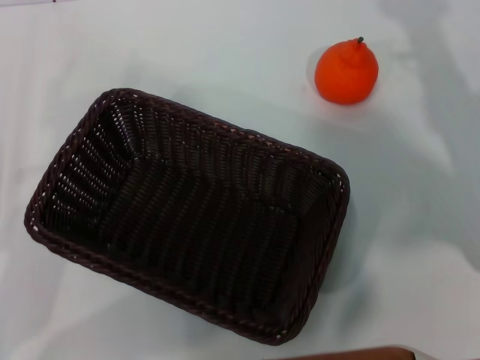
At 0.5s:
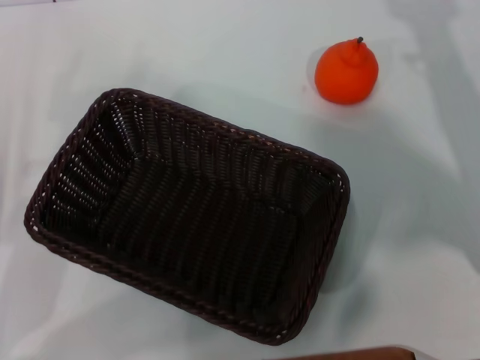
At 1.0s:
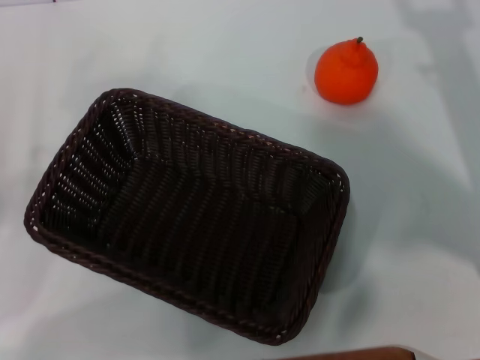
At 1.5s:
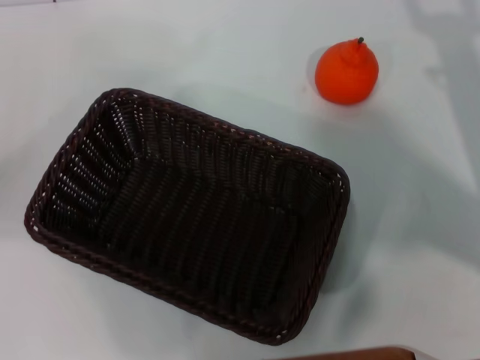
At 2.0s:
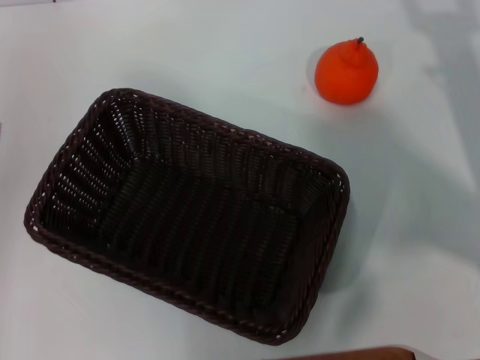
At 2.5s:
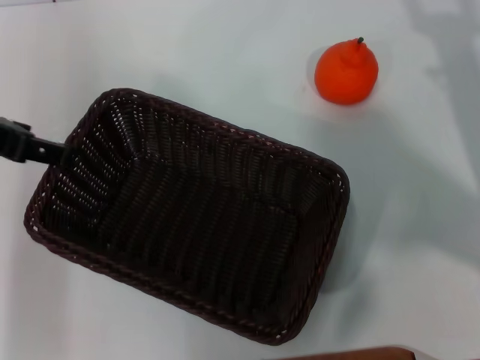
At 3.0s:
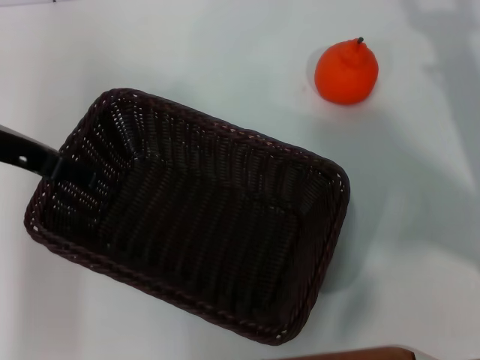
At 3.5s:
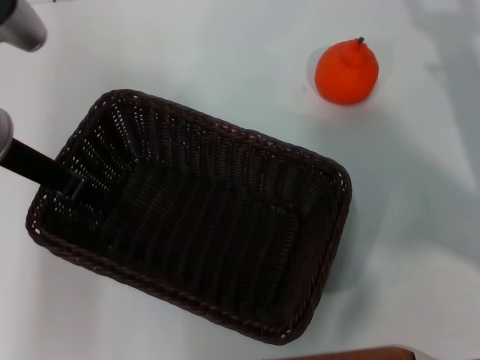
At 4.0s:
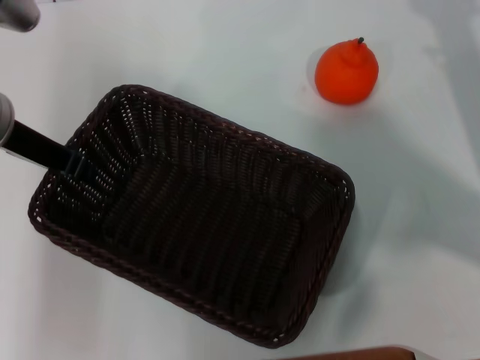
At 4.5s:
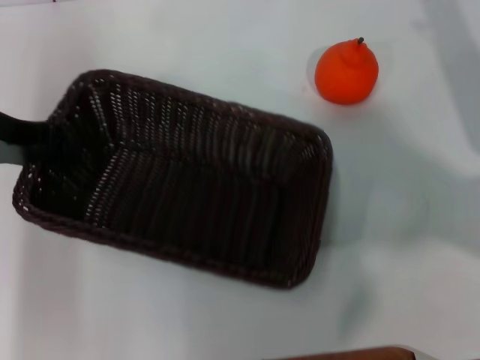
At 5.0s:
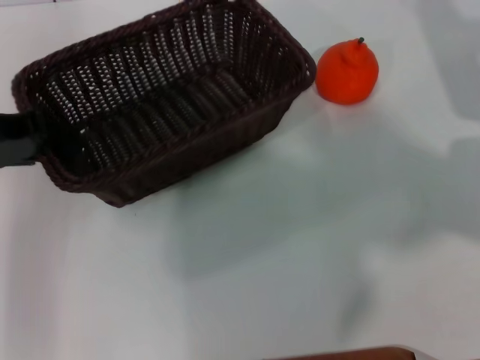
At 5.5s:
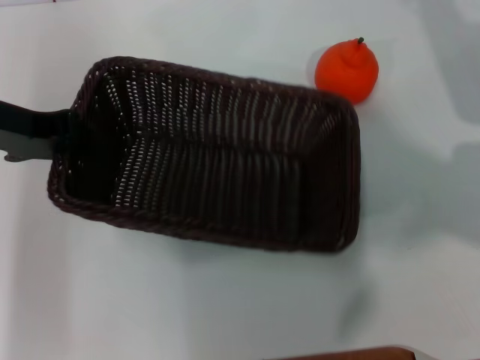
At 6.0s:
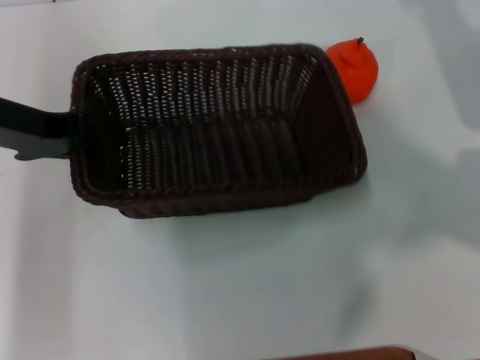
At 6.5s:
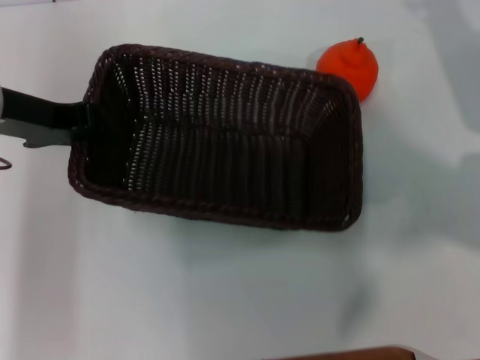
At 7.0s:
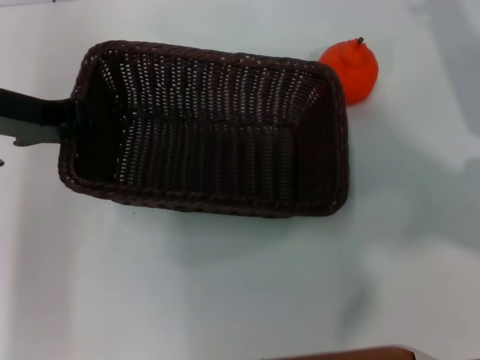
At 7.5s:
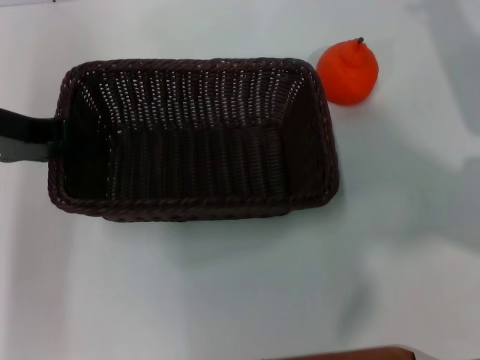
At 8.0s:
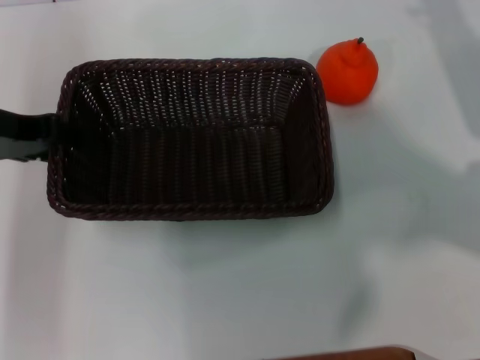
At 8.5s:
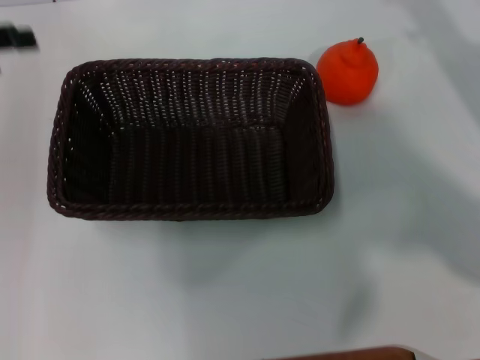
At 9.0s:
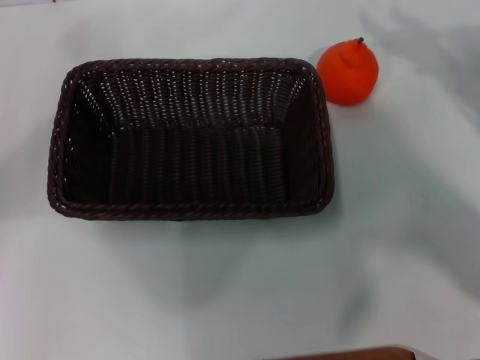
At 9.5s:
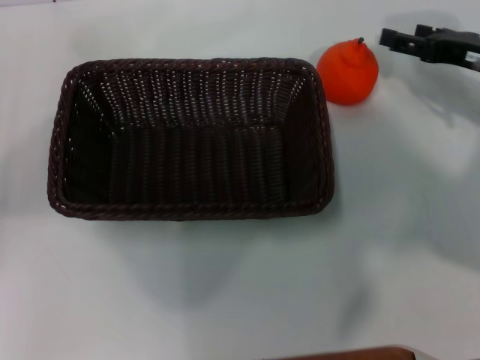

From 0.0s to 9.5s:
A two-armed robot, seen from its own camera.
Task of the whole recording: the left gripper pick up the black basket and place it horizontally in the middle of the table, the right gripper pick up the orange and place it into the black basket.
Step, from 0.0s to 4.0s: Pick up the dark basket with the left gripper.
Step, from 4.5s to 7.5s: Place the dark basket in the center of view with the left gripper.
From 0.0s to 2.0s: The left gripper heads upward and forward, covering some 20 cm.
From 2.0s to 4.0s: The left gripper goes roughly 15 cm to the right, downward and forward, and closes.
From 4.0s to 5.5s: The right gripper is displaced forward by some 5 cm.
From 5.5s to 7.5s: The grippers stay close to where they were, moving slightly.
From 7.5s to 9.5s: The left gripper heads to the left and backward, covering roughly 10 cm, and opens up.

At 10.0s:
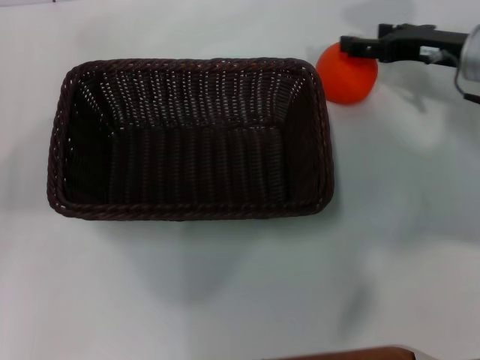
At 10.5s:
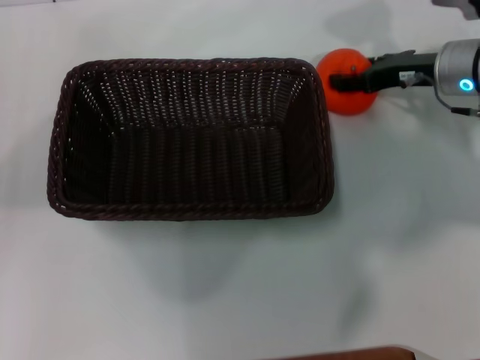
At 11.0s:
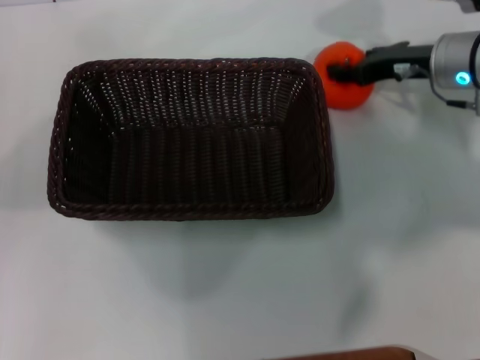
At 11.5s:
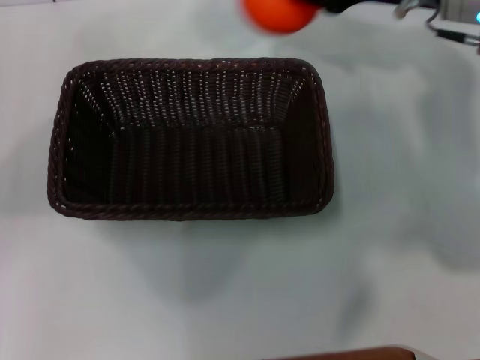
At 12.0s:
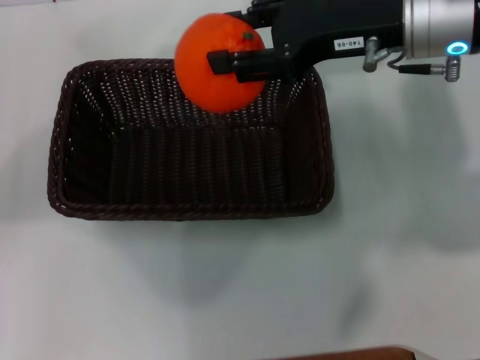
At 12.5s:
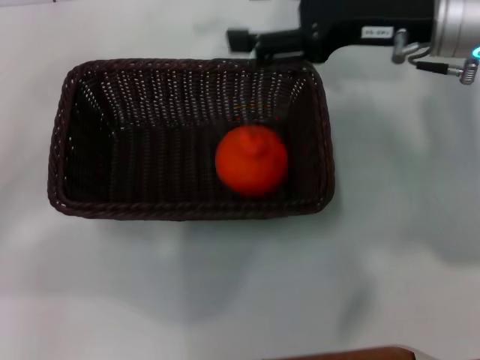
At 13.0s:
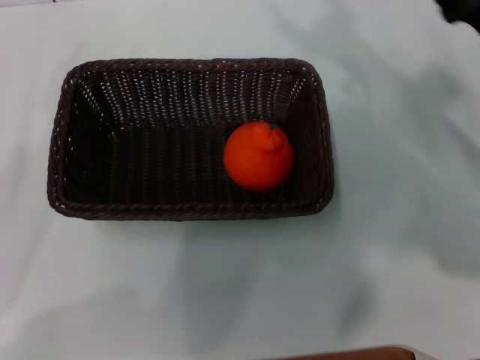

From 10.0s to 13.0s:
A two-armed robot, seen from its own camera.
Task of the whole recording: the left gripper pick up the black basket and place it horizontally in the middle of the table, the right gripper pick up the orange and place it into the black basket.
Step, from 11.5s to 12.0s: Place the orange into the dark basket with the right gripper.
From 10.0s to 11.5s: The right gripper shifts about 10 cm upward and to the left, and closes up.
From 11.5s to 13.0s: The right gripper goes about 15 cm downward, backward and to the right, and opens; the left gripper goes approximately 15 cm downward and backward.

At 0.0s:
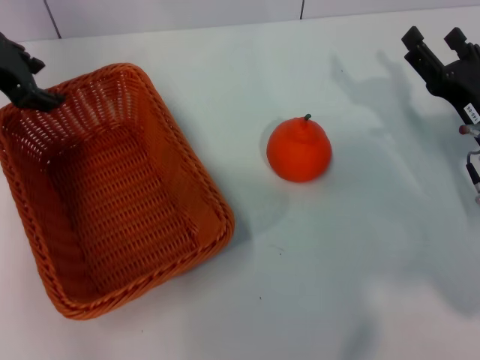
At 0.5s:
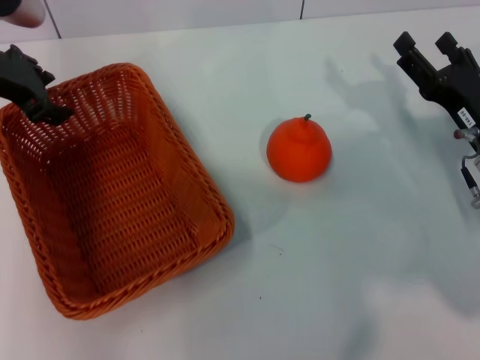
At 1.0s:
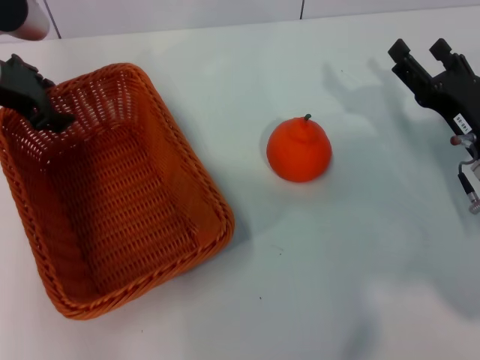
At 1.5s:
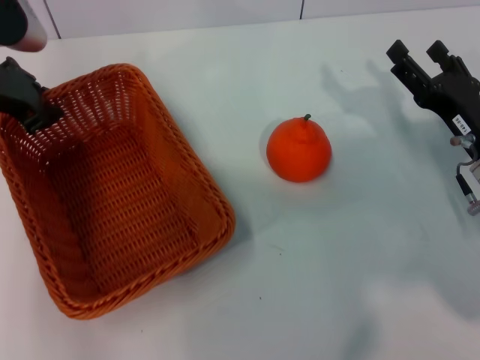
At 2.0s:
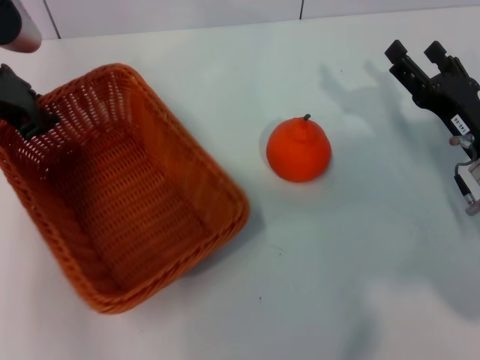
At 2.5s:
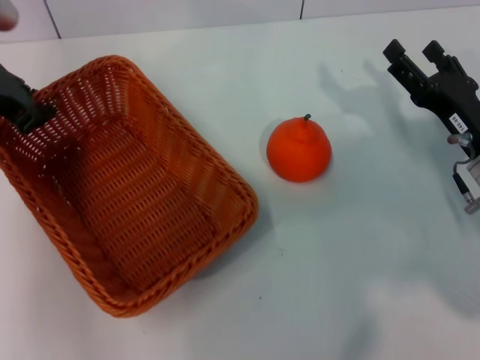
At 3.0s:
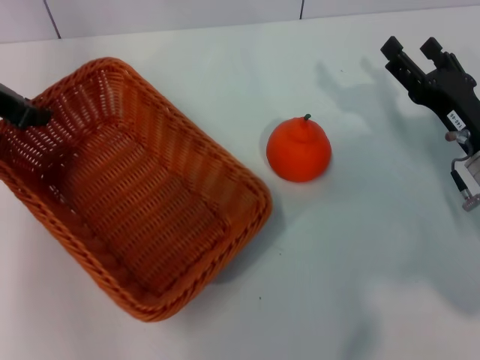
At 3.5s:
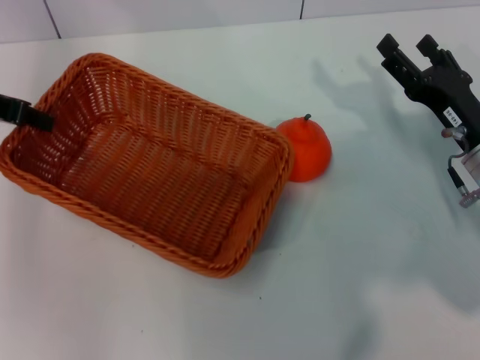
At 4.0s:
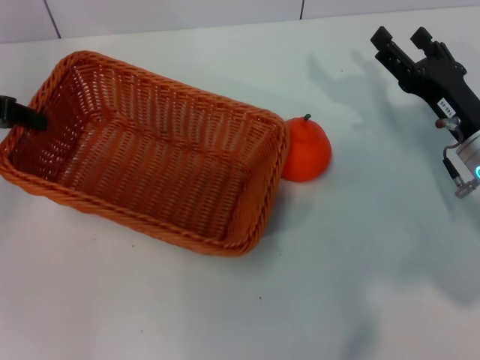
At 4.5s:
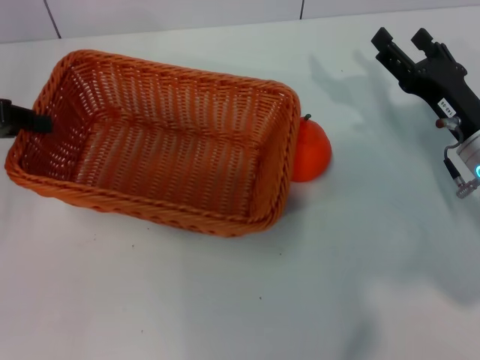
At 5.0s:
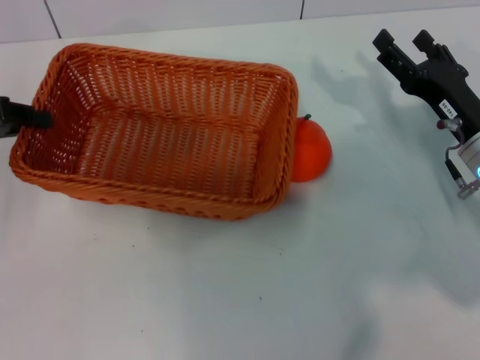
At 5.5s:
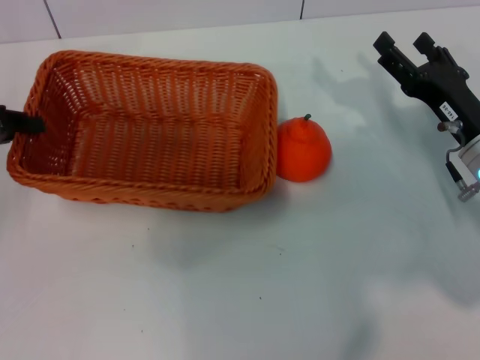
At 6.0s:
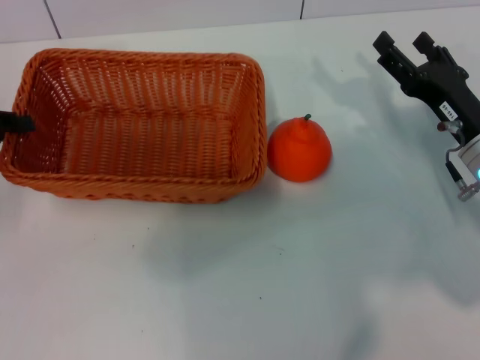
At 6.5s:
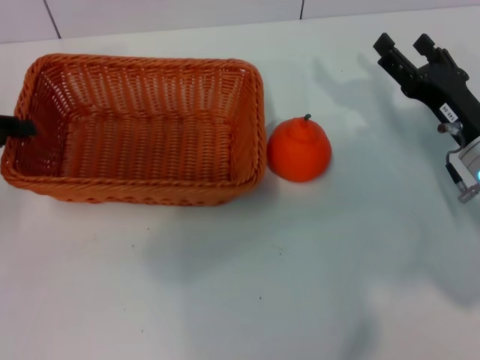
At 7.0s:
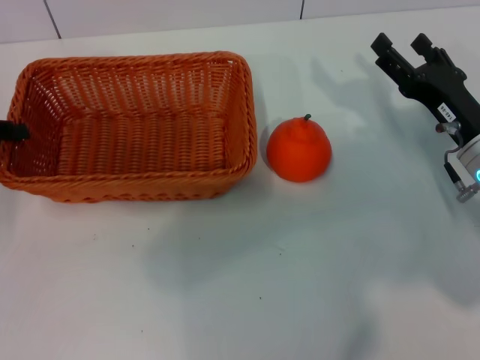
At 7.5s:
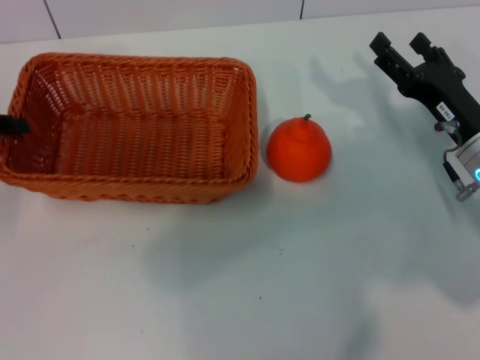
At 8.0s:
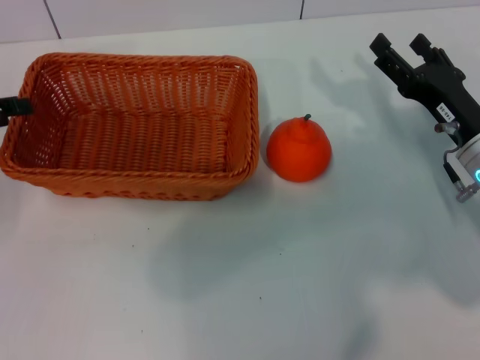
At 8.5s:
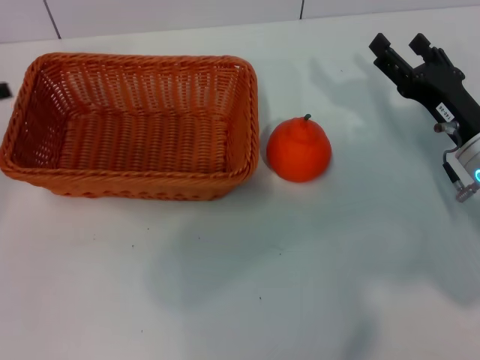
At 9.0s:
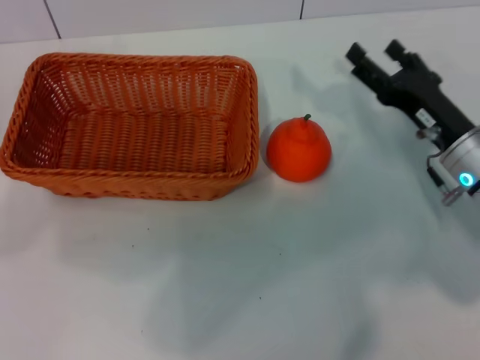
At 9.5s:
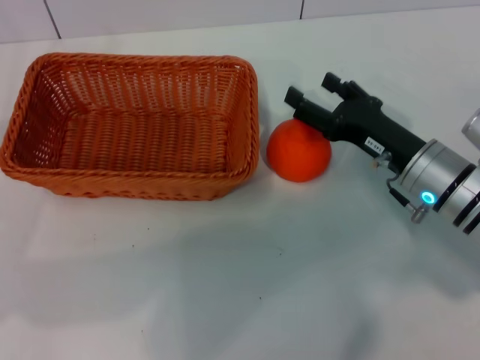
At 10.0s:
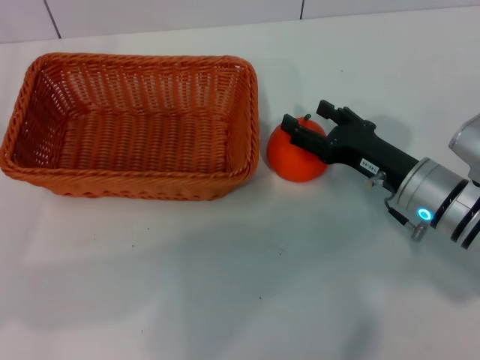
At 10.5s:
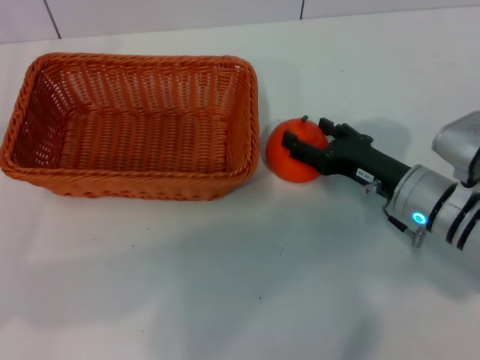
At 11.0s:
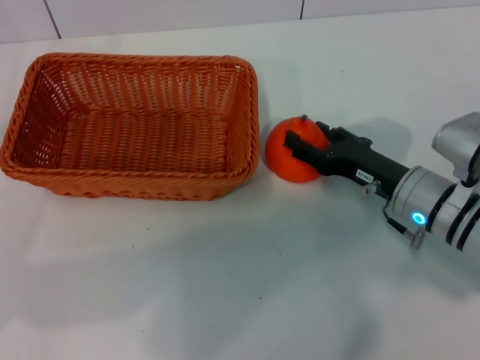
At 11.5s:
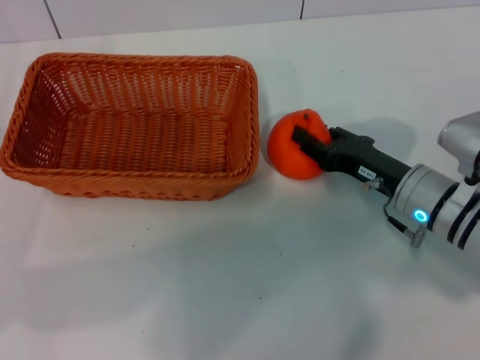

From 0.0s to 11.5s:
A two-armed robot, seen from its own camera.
Task of the whole recording: the left gripper pick up the yellow basket and place it horizontally in the middle of the table, the right gripper pick up the orange and place it into the yellow basket.
Step, from 0.0s to 3.5s: Pick up the light basket with the left gripper.
Step, from 4.0s to 8.5s: Place the light basket in the center of view with the left gripper.
From 0.0s to 2.0s: The left gripper closes up.
From 2.0s to 4.0s: The left gripper goes about 5 cm to the left.
From 4.0s to 6.0s: The left gripper shifts approximately 5 cm downward.
From 6.0s to 7.5s: Both grippers stay put.
From 7.5s to 9.5s: The left gripper heads backward, covering some 5 cm, and opens.
From 9.5s to 11.5s: The right gripper closes up.

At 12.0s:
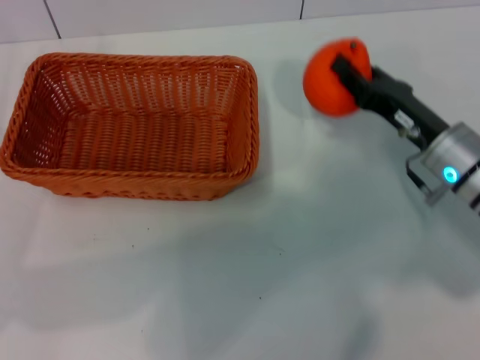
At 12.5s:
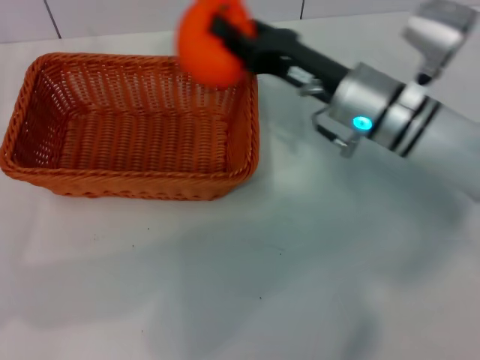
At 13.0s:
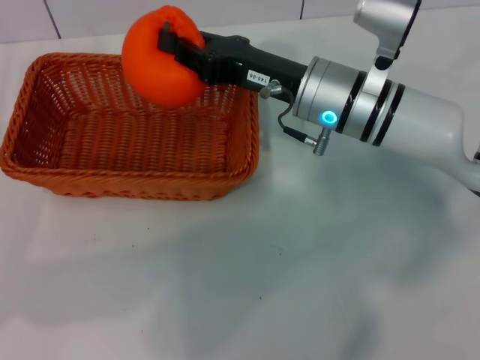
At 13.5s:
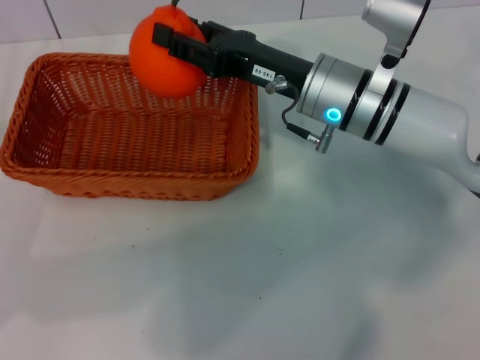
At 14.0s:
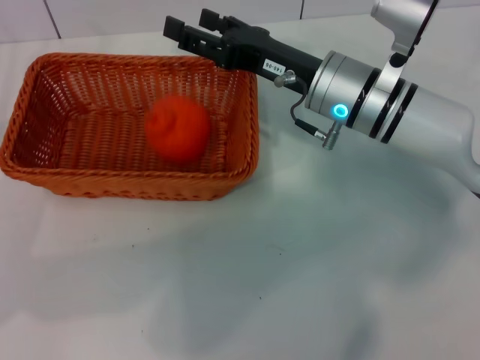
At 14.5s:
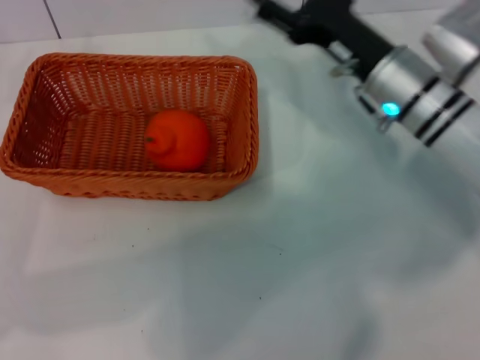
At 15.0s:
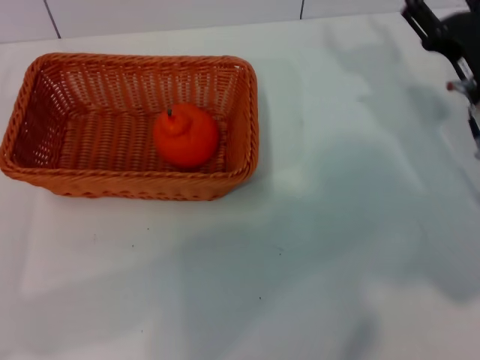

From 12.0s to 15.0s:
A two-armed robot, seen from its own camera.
Task of the whole recording: the left gripper pick up the yellow basket and place it horizontally in the middle of the table, the right gripper pick up the orange and place it into the yellow basket.
Step, from 12.0s to 13.5s: Place the orange into the light basket with the right gripper.
From 12.0s to 13.5s: The right gripper goes roughly 15 cm to the left, upward and forward.
From 13.5s to 15.0s: The right gripper goes some 15 cm to the right, and opens.
